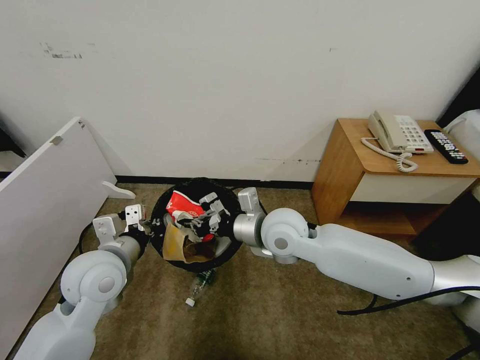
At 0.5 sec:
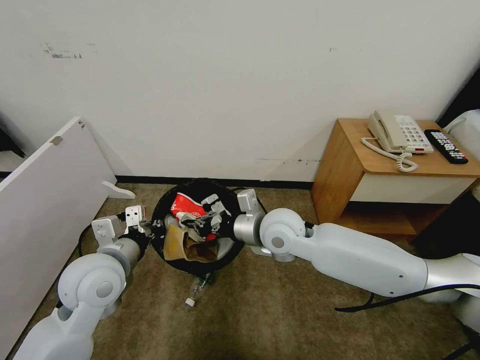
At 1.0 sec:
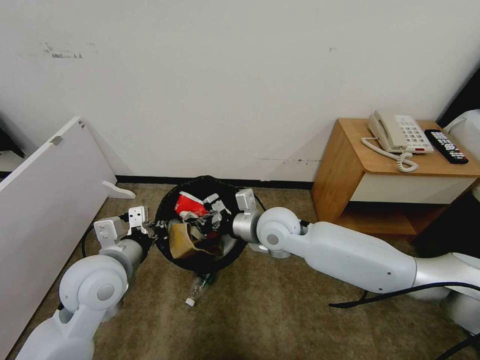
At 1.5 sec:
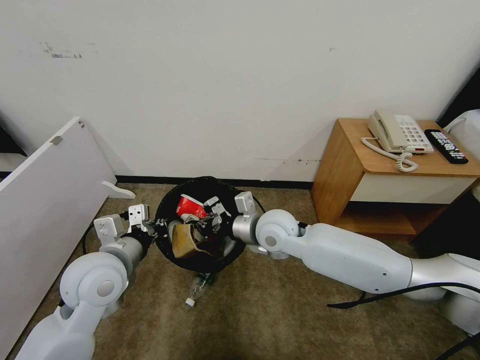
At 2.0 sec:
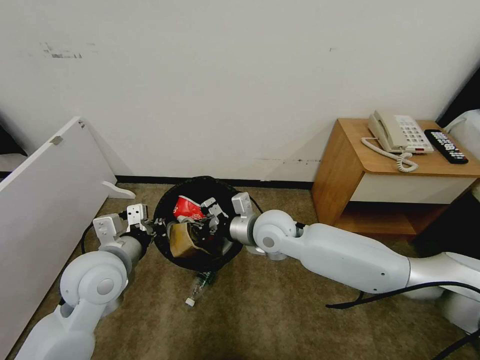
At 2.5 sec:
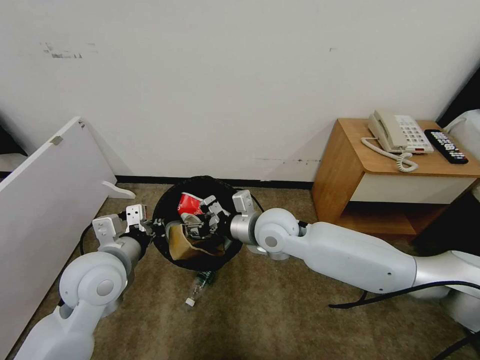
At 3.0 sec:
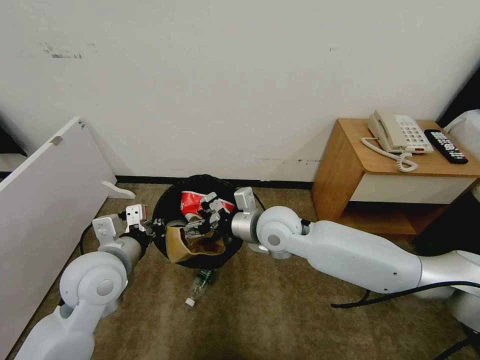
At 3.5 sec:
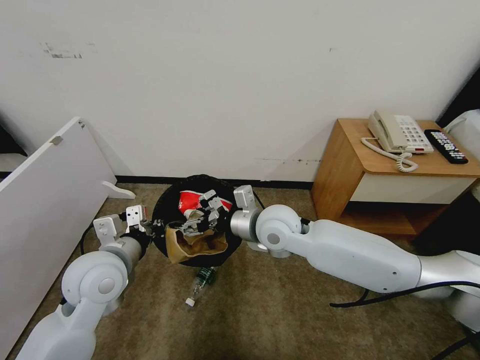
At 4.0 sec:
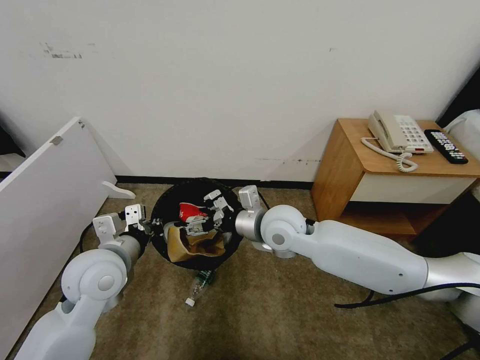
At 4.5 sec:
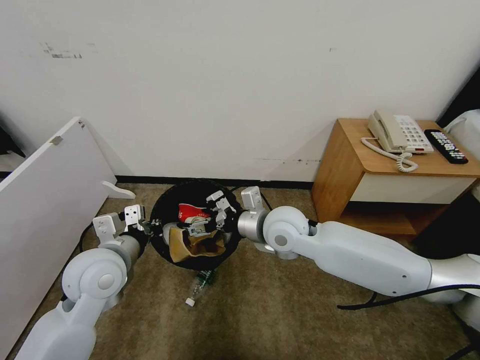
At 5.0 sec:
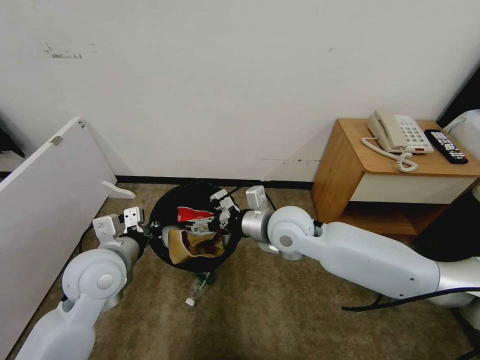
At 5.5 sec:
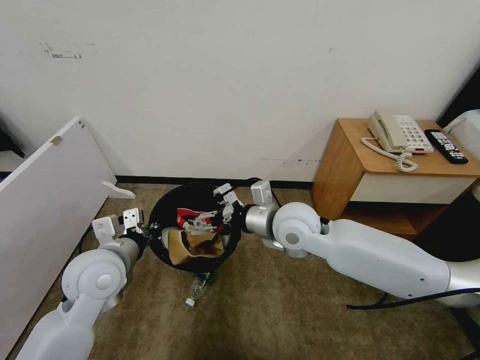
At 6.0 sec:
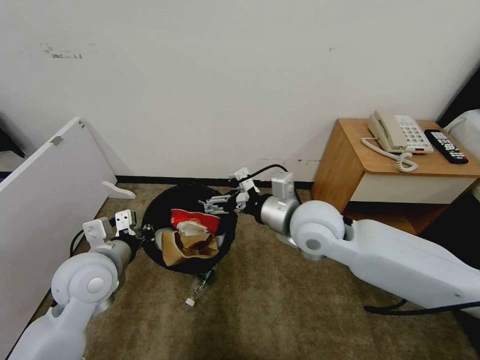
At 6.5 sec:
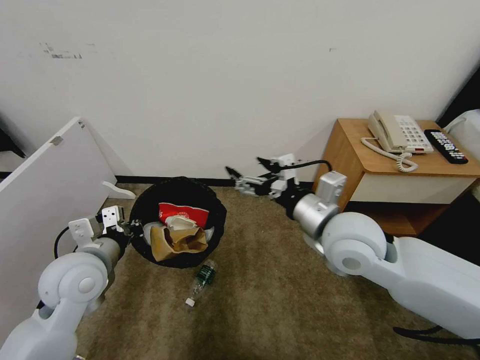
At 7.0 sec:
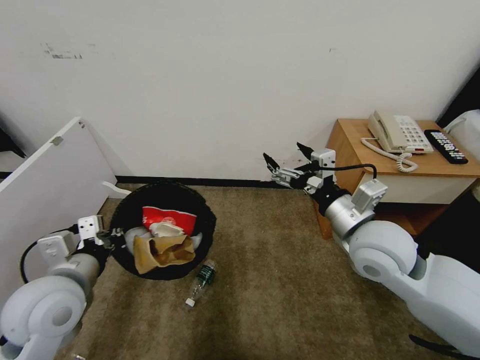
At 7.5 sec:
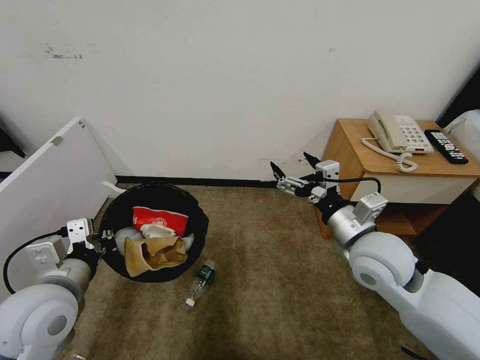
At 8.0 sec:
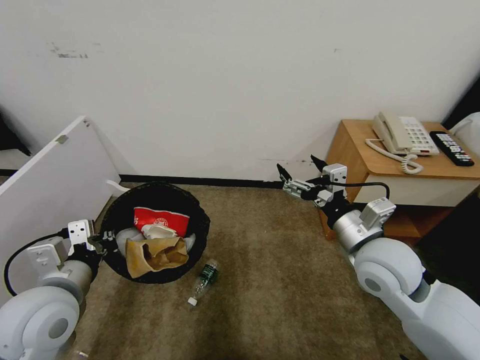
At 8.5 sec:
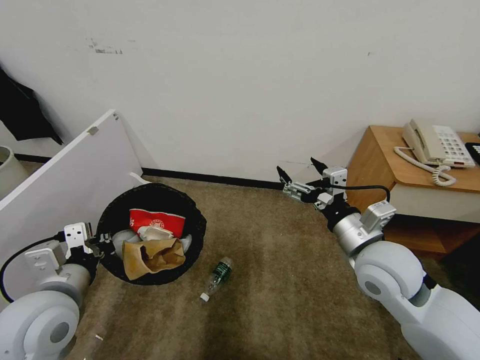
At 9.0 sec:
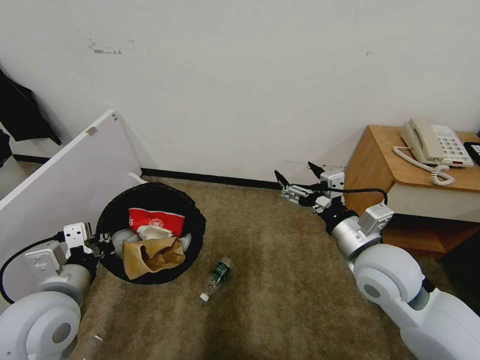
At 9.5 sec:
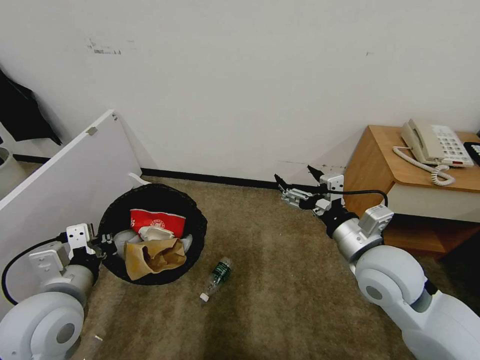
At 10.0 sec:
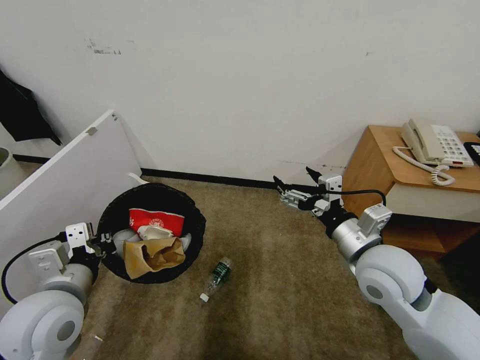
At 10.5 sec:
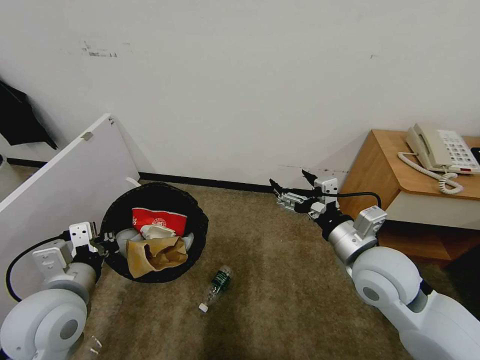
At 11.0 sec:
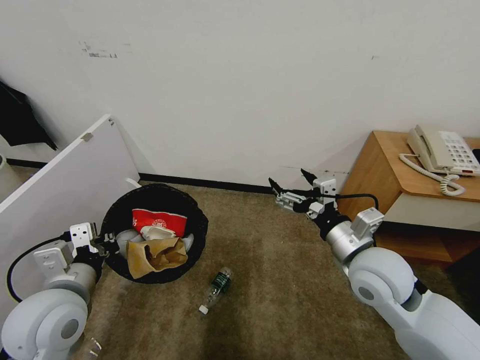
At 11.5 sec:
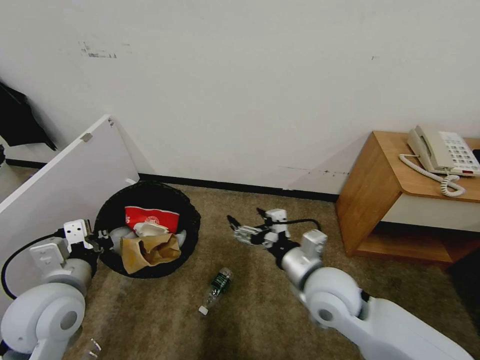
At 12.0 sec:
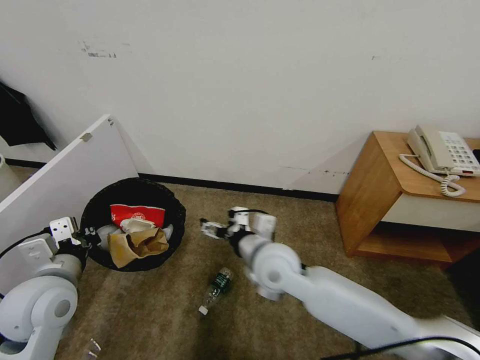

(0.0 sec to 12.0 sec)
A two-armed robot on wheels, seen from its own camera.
Task of the whole recording: Pick up the trash bin and place the garbage on the floor into it.
0.0 sec - 2.0 sec: There are only small adjustments of the grippers.
2.0 sec - 4.0 sec: The right gripper opens up.
4.0 sec - 6.0 sec: The right gripper moves about 10 cm.
6.0 sec - 8.0 sec: The left gripper moves backward, roughly 5 cm. The right gripper moves to the right and backward, roughly 15 cm.
10.0 sec - 12.0 sec: The right gripper shifts about 20 cm to the left.

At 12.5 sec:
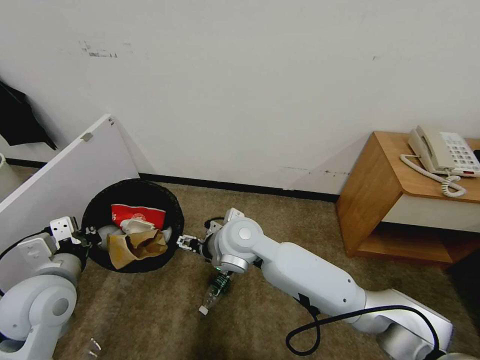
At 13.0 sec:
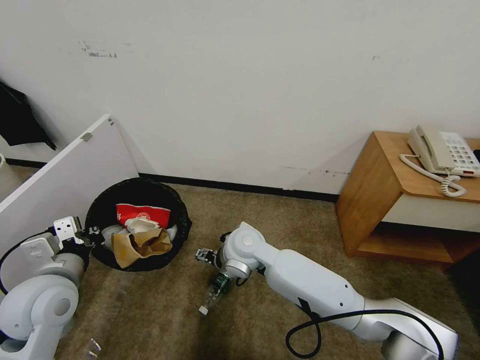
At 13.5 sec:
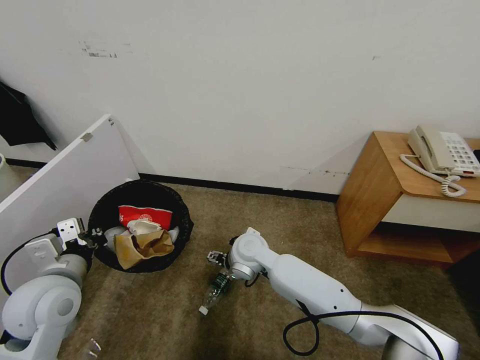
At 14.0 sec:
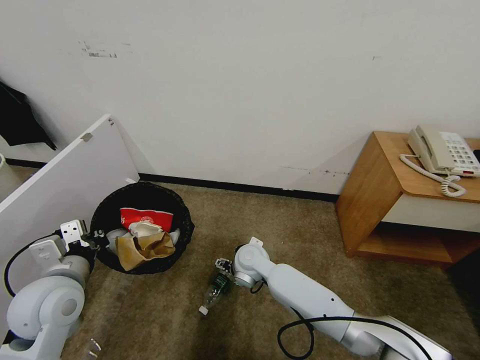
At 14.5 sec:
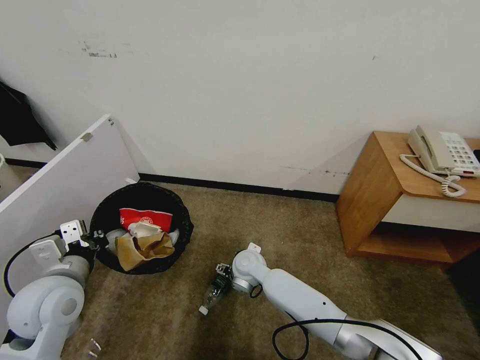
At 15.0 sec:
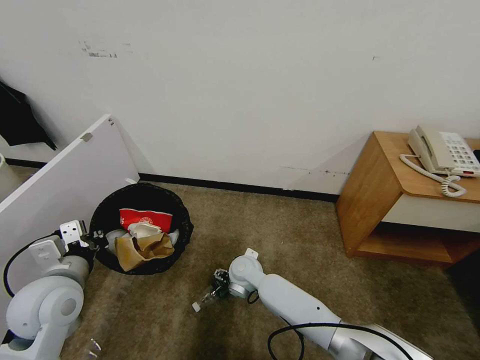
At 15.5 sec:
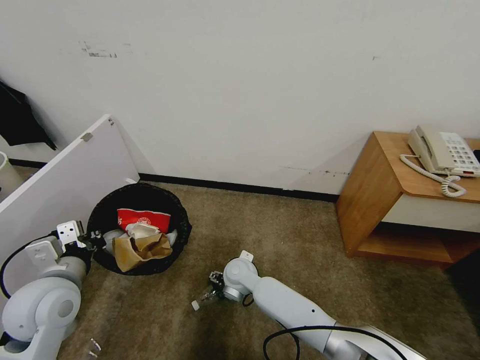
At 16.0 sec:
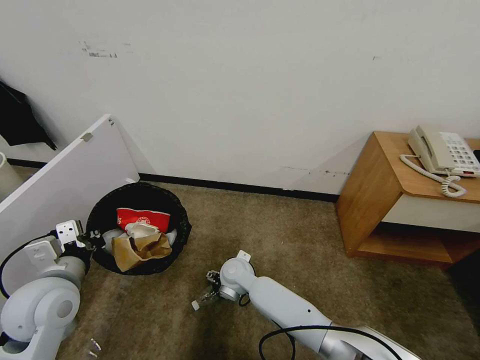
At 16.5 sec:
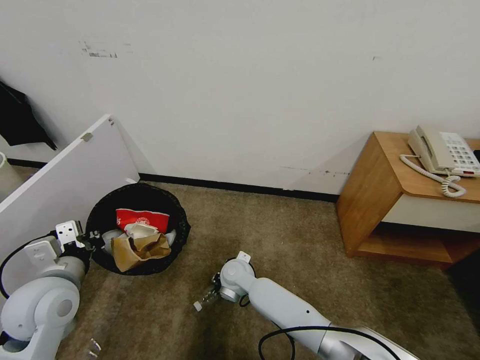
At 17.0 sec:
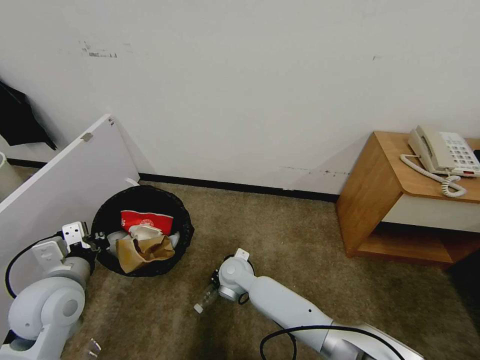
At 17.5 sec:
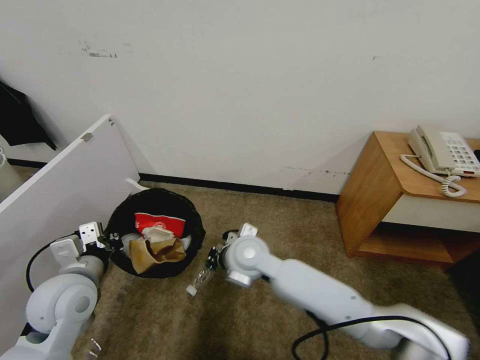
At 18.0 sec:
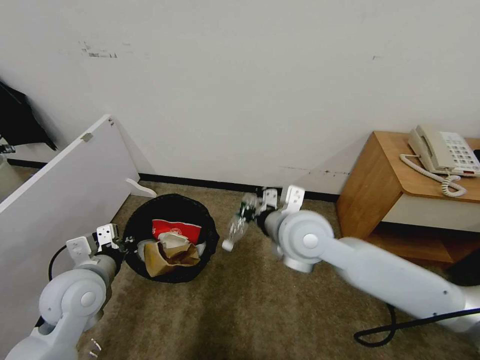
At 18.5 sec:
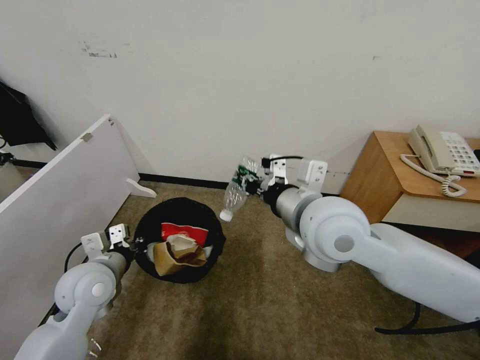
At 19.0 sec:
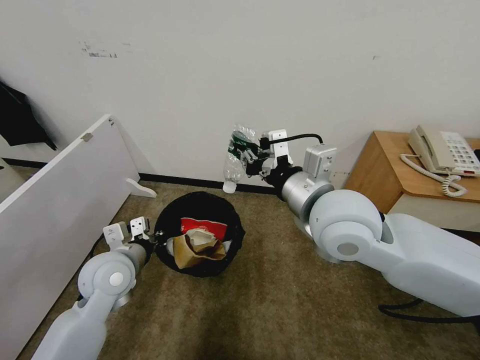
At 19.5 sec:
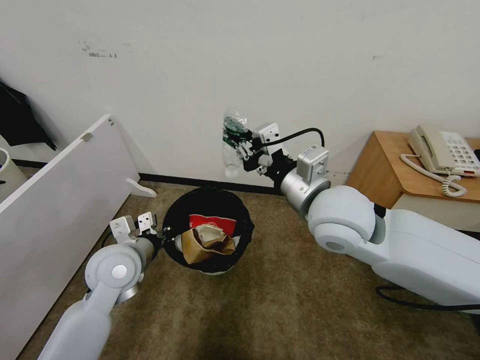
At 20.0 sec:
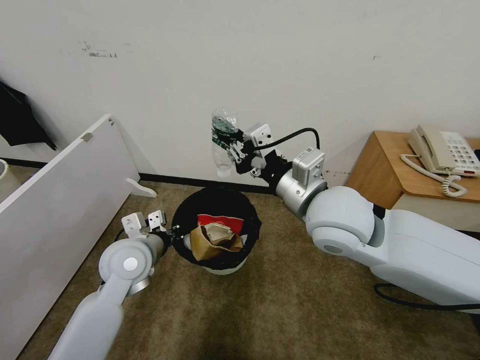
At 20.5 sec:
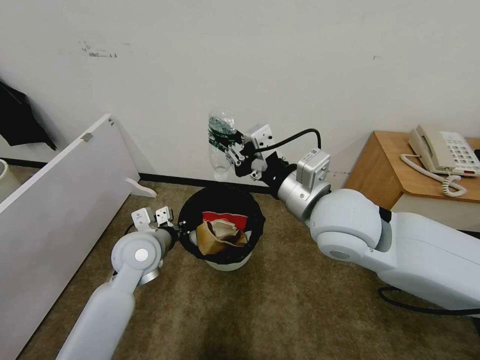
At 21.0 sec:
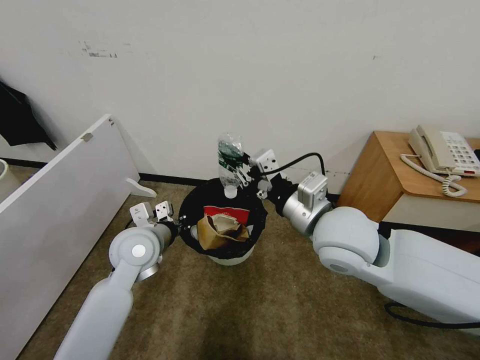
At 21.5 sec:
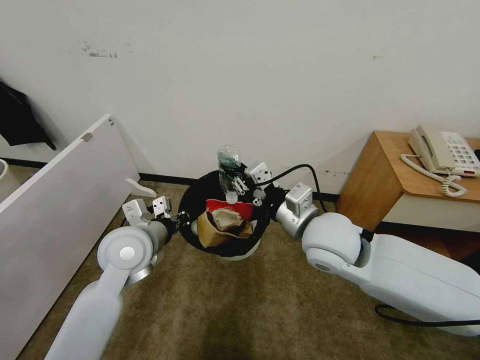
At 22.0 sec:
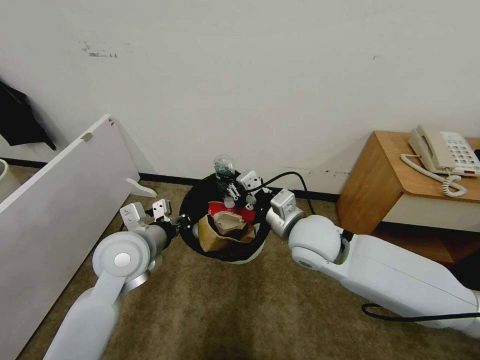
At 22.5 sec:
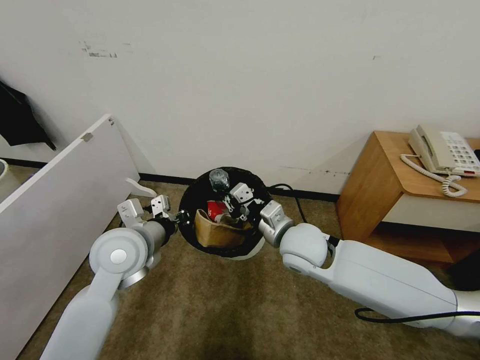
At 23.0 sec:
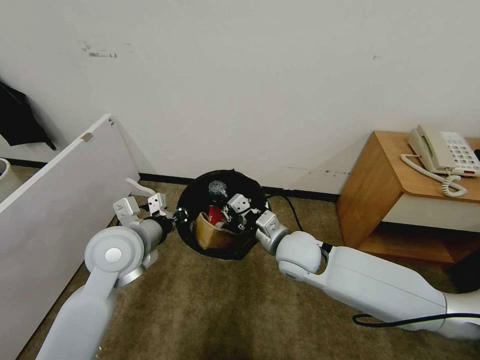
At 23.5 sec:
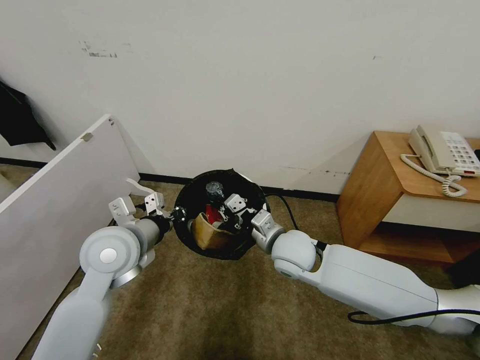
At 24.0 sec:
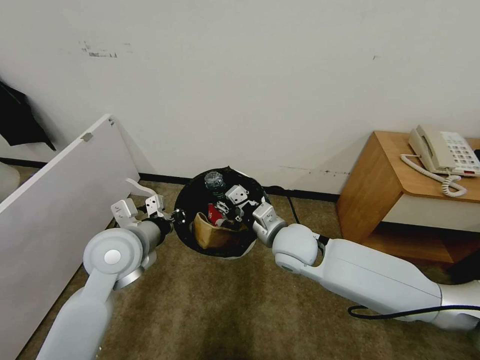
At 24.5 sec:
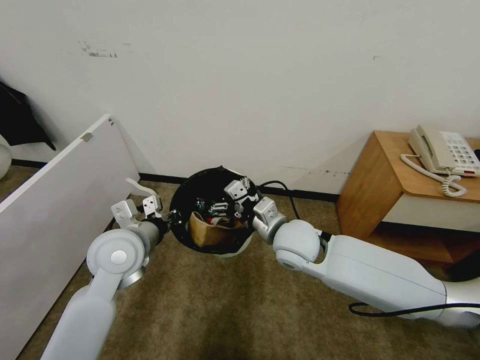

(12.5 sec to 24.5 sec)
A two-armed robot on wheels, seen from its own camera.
Task of the whole recording: Pick up the trash bin and place the garbage on the floor into it.
12.5 sec - 14.5 sec: The right gripper moves downward, roughly 20 cm.
14.5 sec - 16.5 sec: The right gripper closes up.
16.5 sec - 18.5 sec: The right gripper is displaced upward and to the right by some 35 cm. Meanwhile the left gripper shifts by about 5 cm.
18.5 sec - 20.5 sec: The left gripper travels to the right and forward by approximately 10 cm.
20.5 sec - 22.5 sec: The right gripper travels downward by approximately 15 cm, while the left gripper shifts approximately 5 cm upward.
22.5 sec - 24.5 sec: The right gripper opens.

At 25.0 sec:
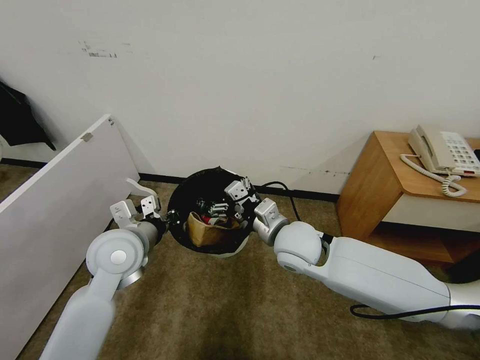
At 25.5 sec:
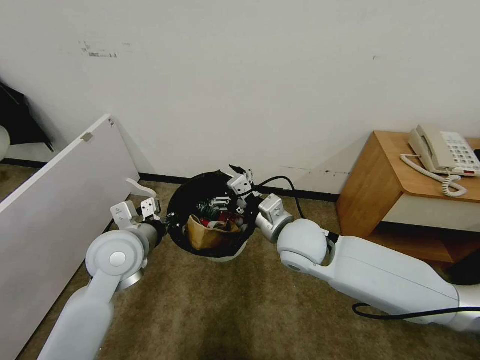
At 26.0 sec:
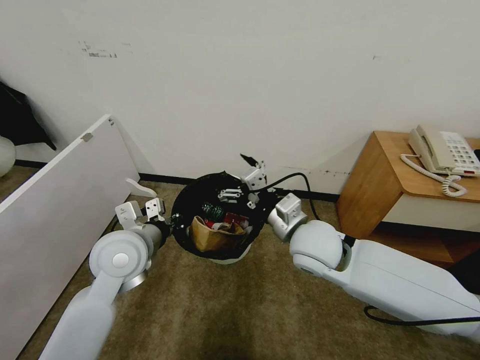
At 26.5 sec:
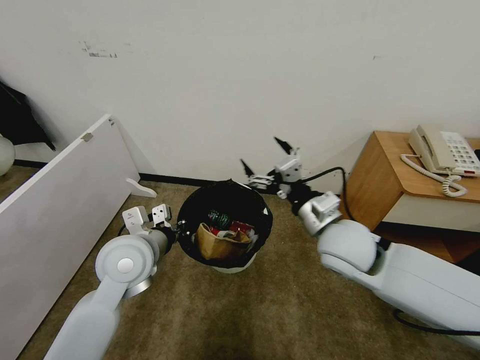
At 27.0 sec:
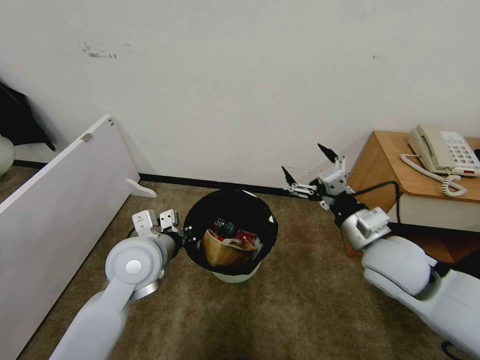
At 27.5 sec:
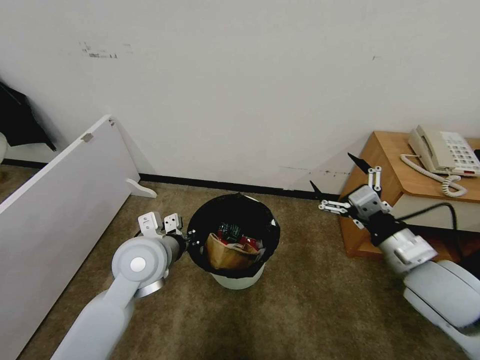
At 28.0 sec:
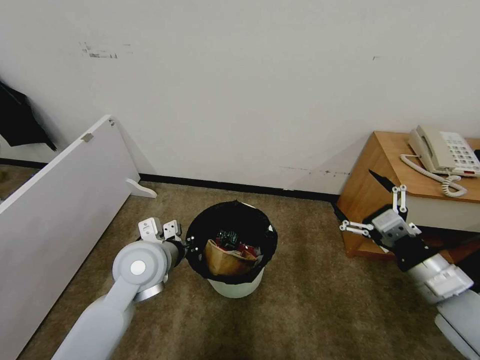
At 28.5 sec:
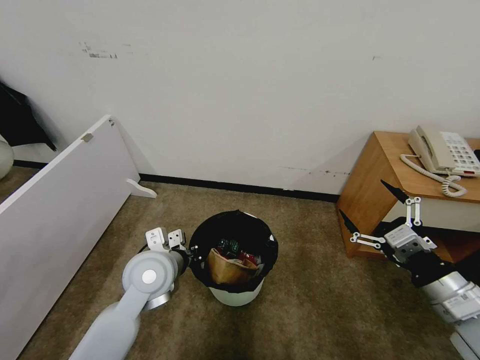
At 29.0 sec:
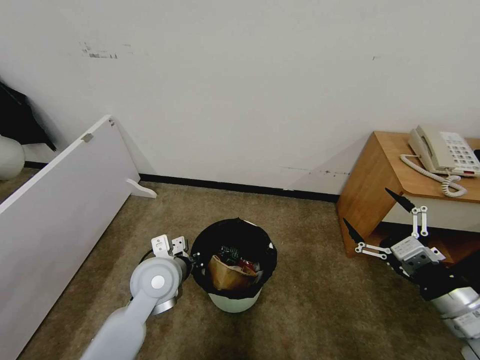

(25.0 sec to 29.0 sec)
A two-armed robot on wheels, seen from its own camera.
Task of the whole recording: Pick up the trash bin and place the garbage on the floor into it.
25.0 sec - 27.0 sec: The right gripper is displaced to the right and backward by roughly 15 cm.
27.0 sec - 29.0 sec: The right gripper is displaced backward and to the right by about 15 cm. Meanwhile the left gripper travels downward by approximately 5 cm.
